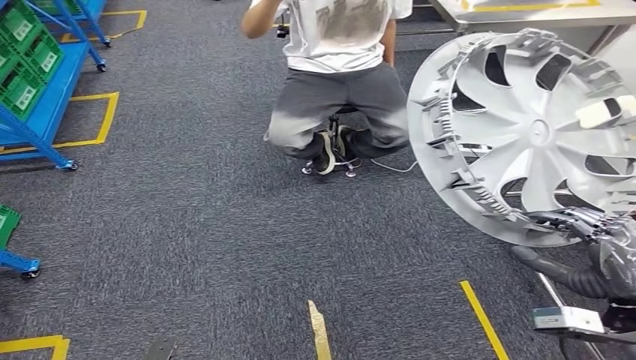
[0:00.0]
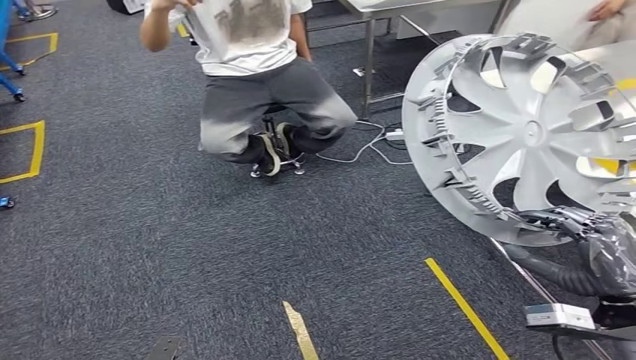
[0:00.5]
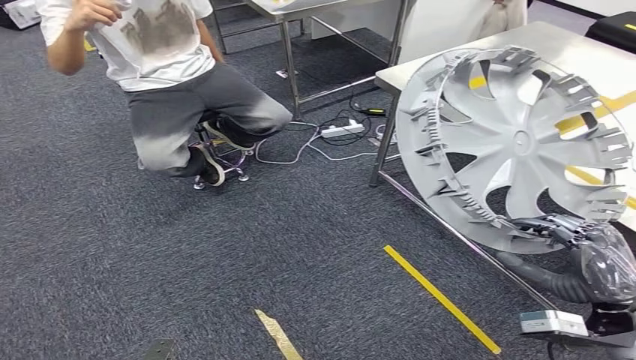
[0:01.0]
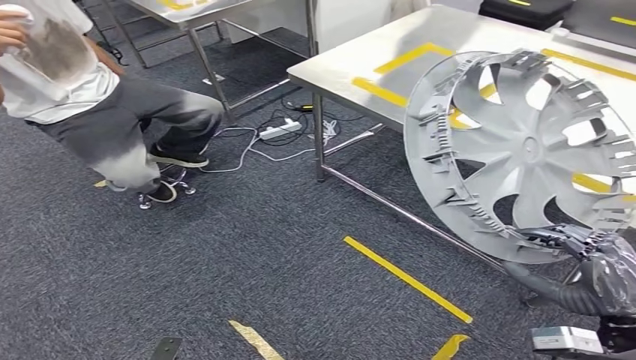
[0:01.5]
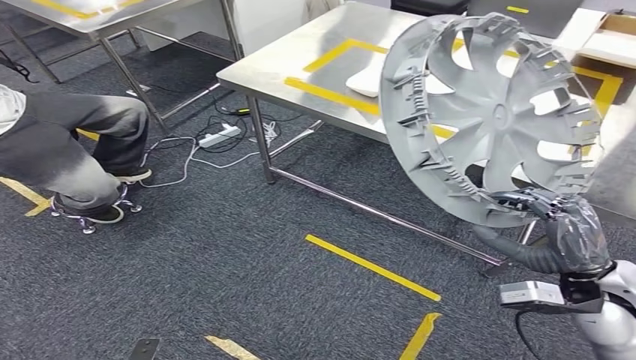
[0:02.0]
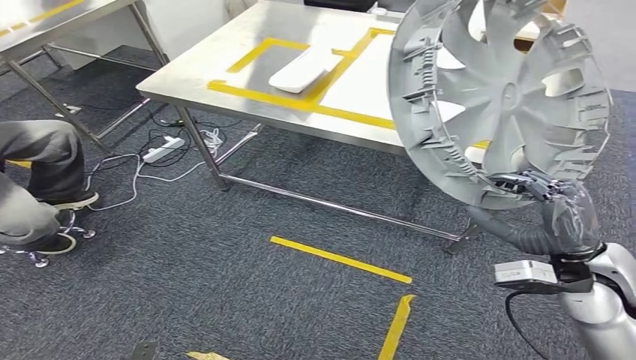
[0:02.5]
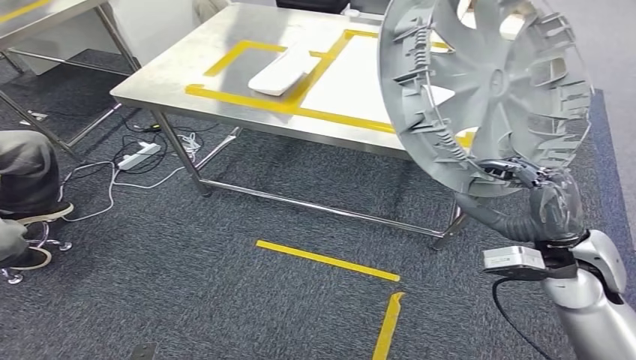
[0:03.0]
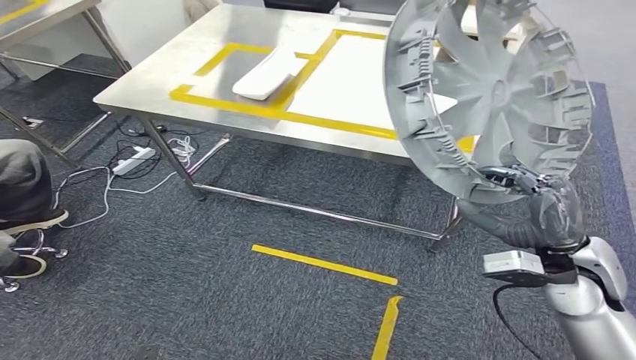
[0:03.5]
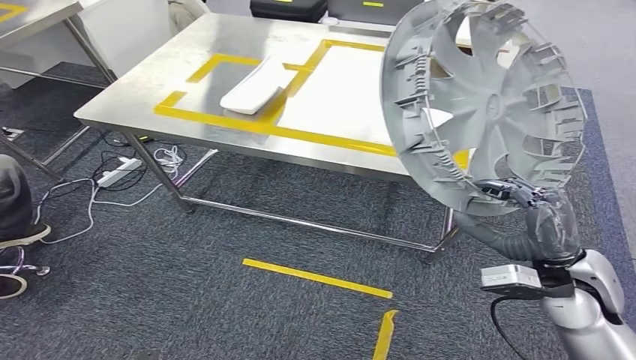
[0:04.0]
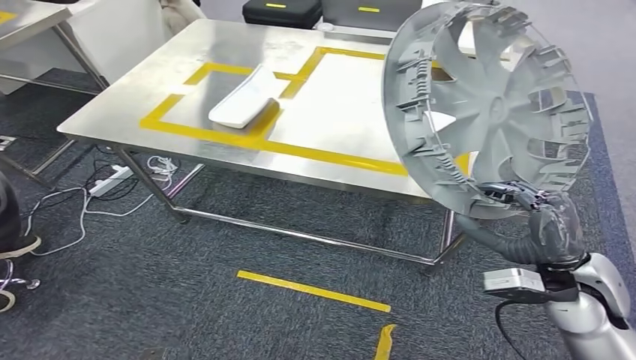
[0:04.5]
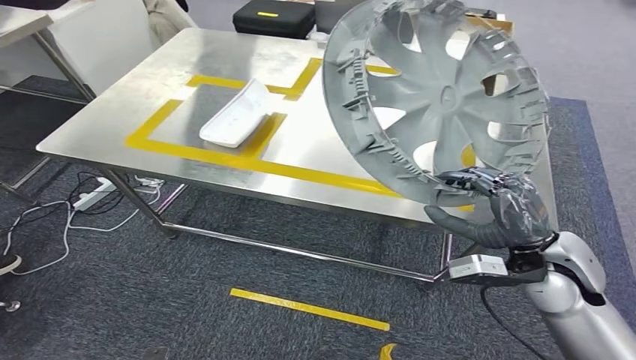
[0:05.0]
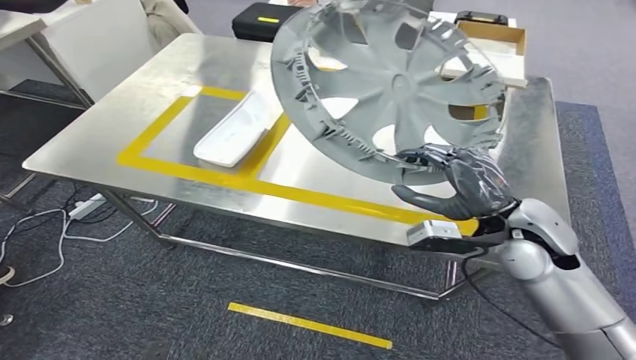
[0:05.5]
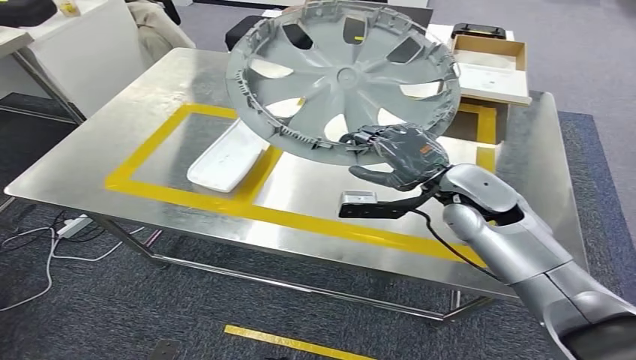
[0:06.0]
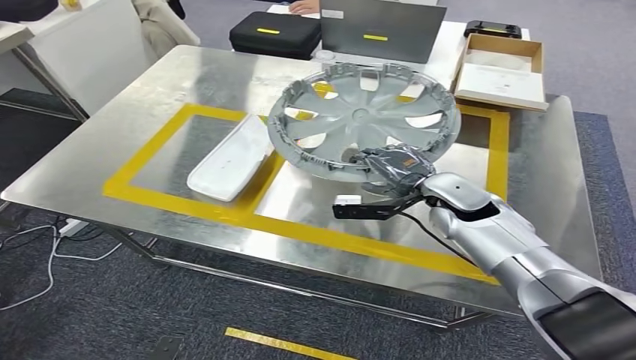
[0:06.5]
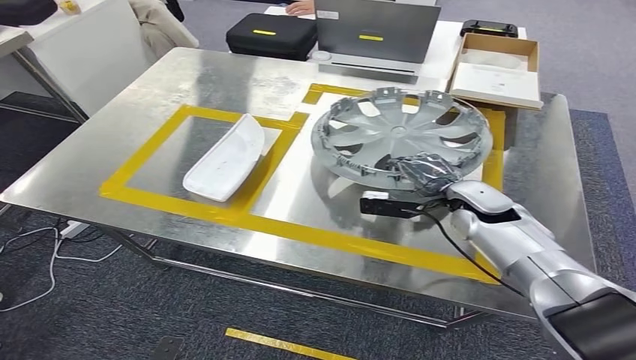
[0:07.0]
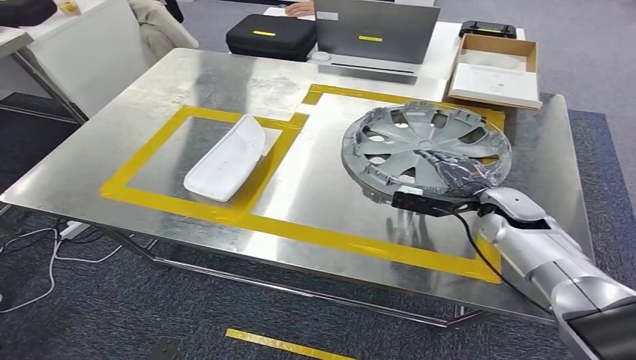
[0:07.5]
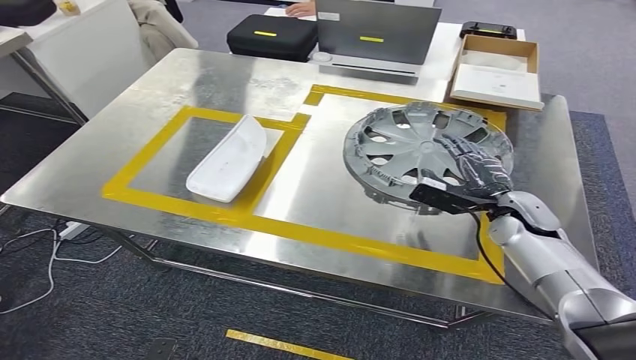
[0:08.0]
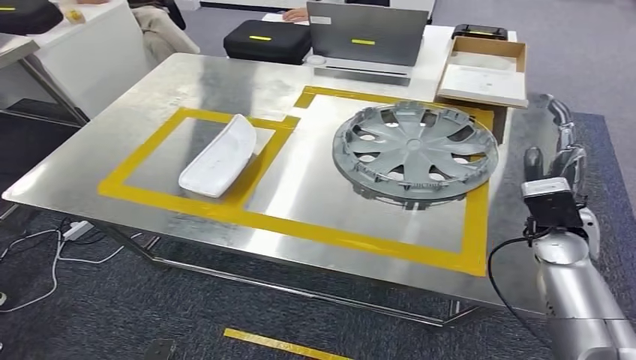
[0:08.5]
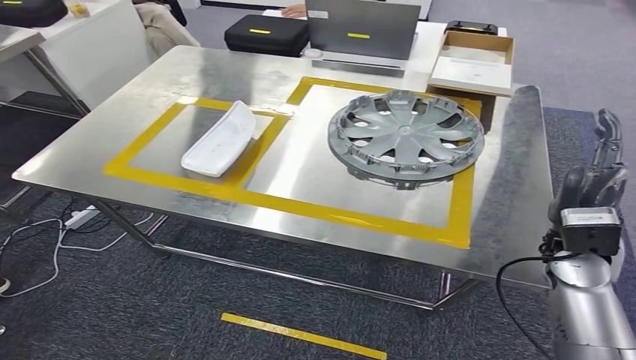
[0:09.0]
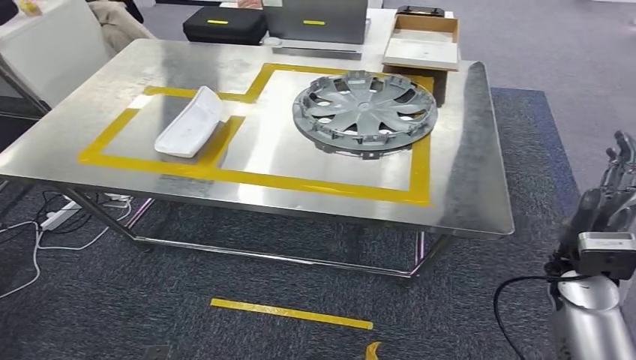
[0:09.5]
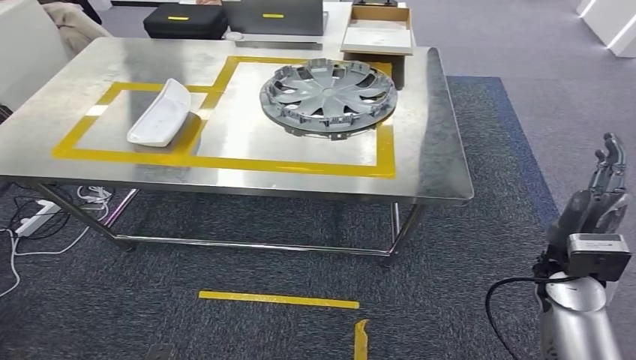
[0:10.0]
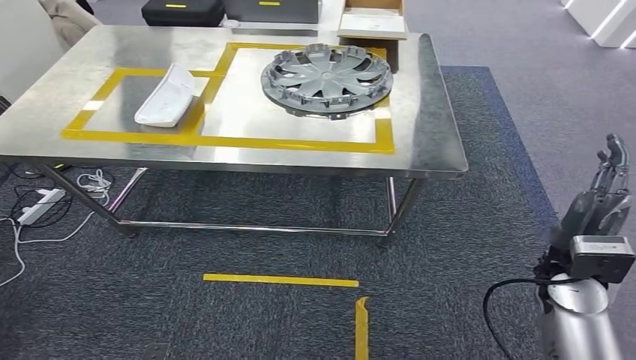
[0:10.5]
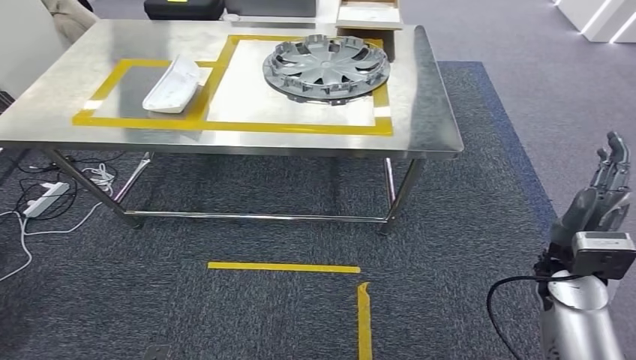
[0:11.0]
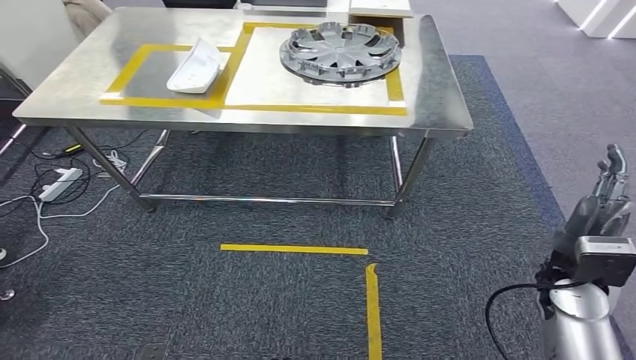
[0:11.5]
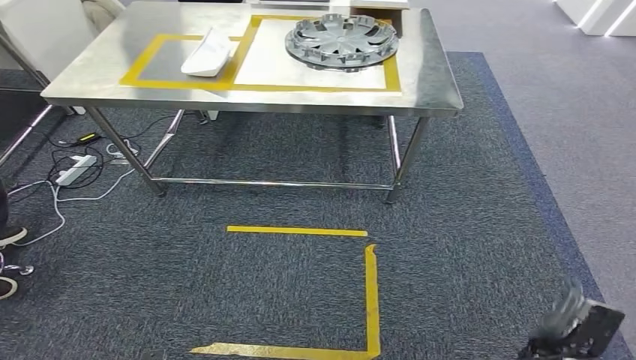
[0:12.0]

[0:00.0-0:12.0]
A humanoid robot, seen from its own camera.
Step, 0:00.0 to 0:04.5: Move the small parts to the workbench.
Step, 0:05.0 to 0:07.5: Insert the small parts into the corresponding holes on the workbench.

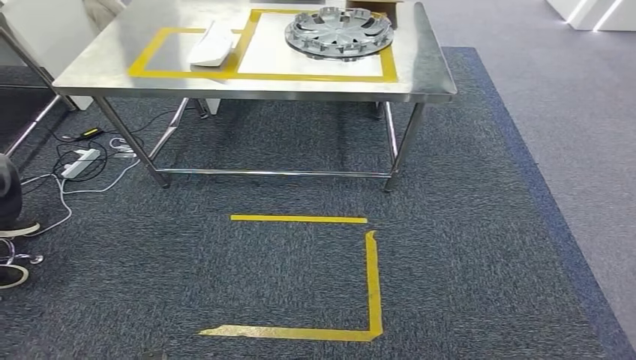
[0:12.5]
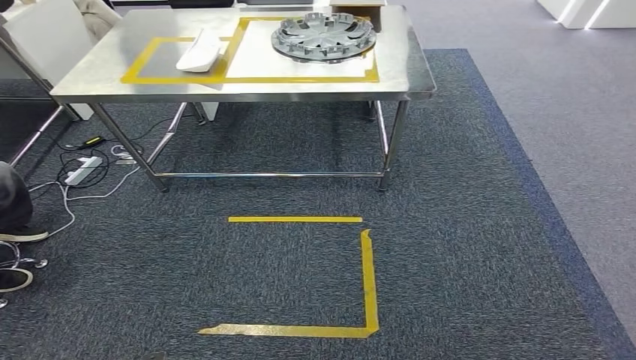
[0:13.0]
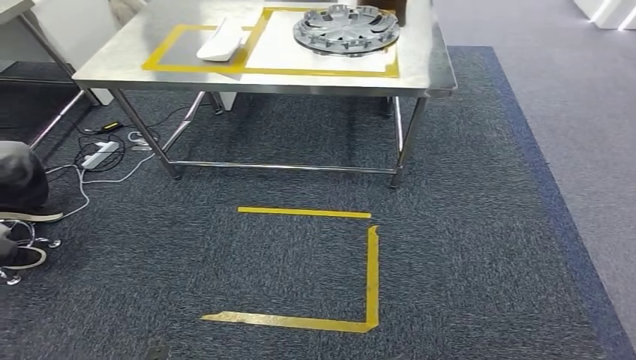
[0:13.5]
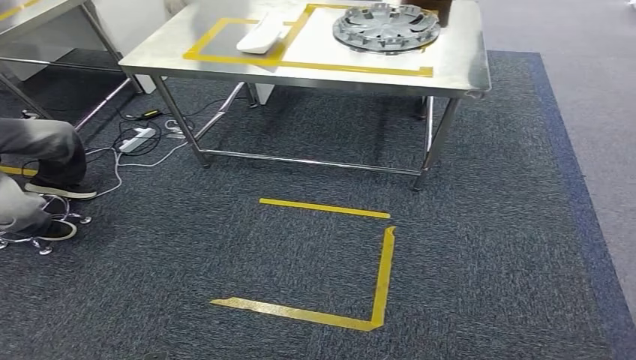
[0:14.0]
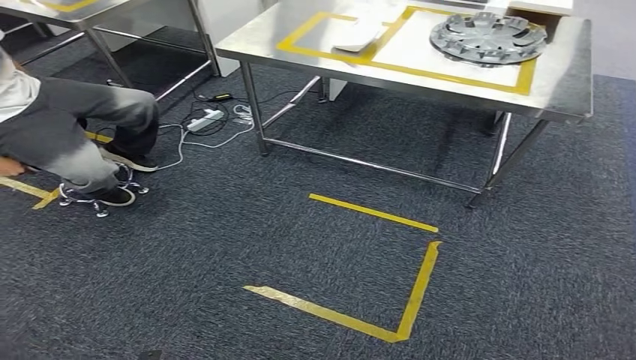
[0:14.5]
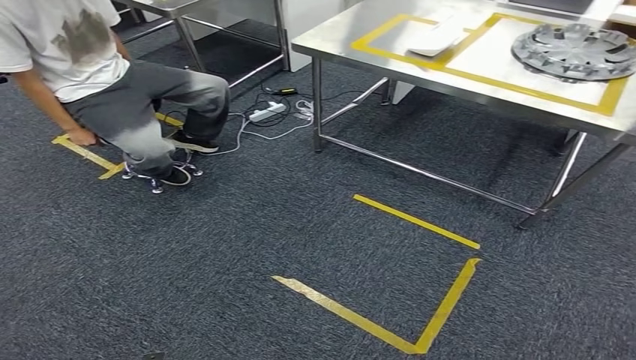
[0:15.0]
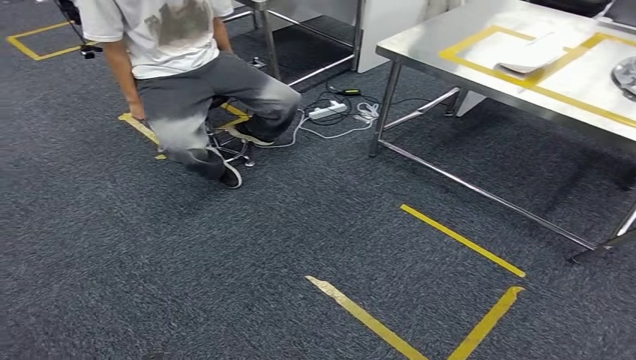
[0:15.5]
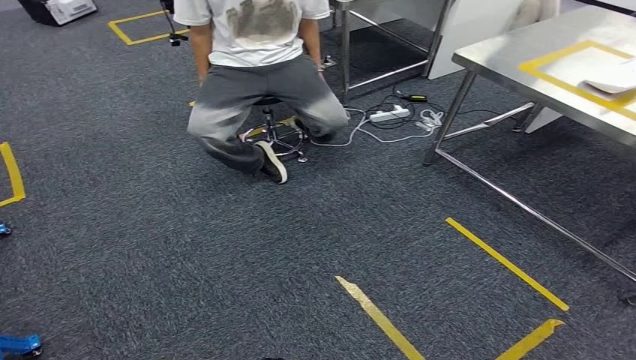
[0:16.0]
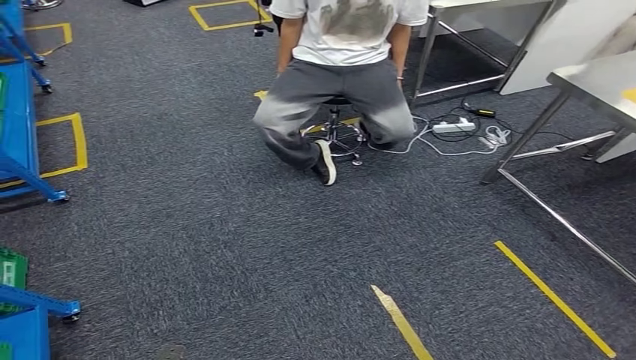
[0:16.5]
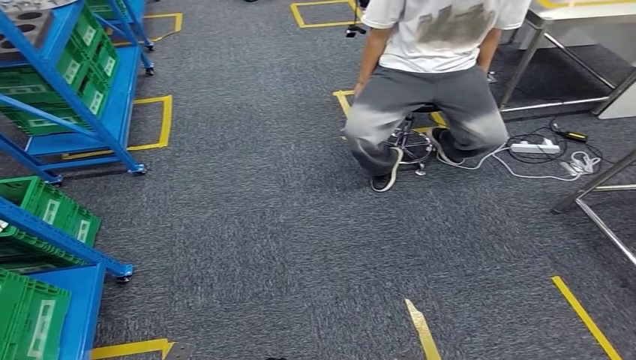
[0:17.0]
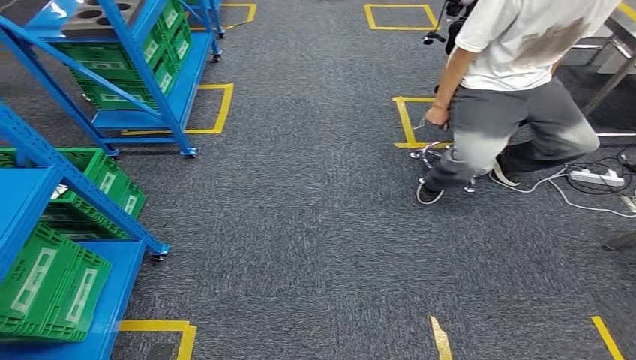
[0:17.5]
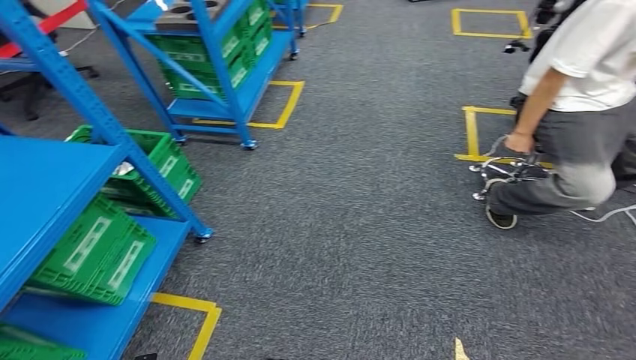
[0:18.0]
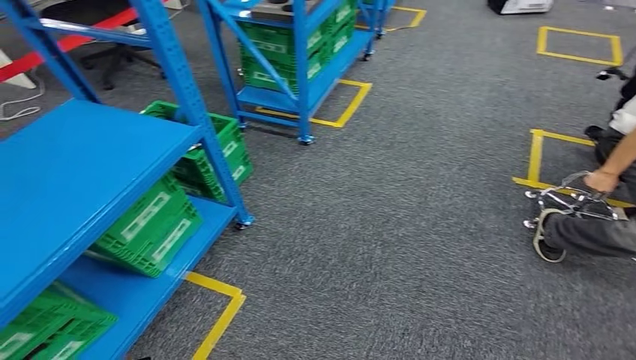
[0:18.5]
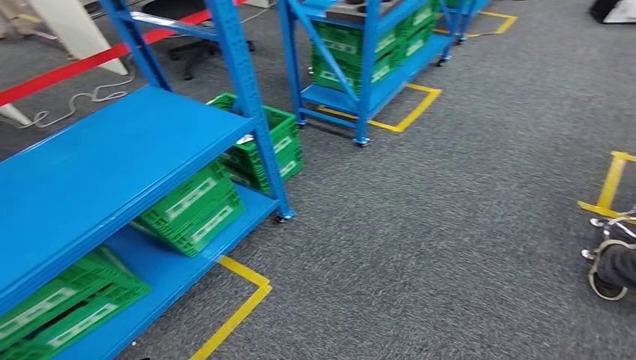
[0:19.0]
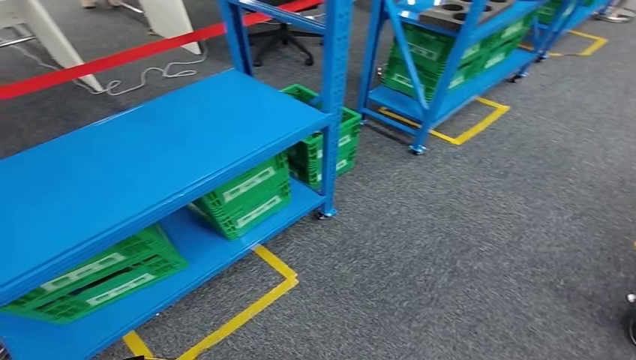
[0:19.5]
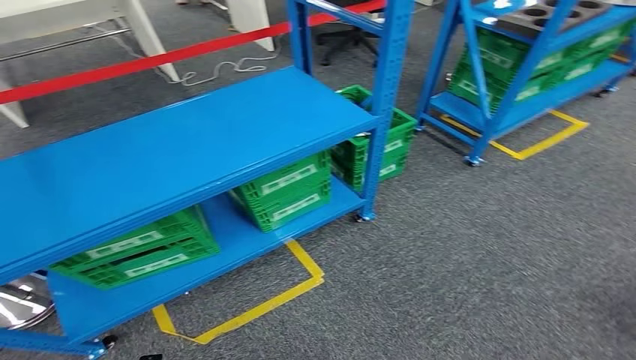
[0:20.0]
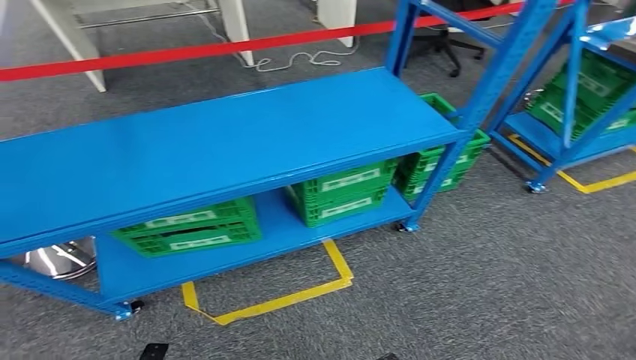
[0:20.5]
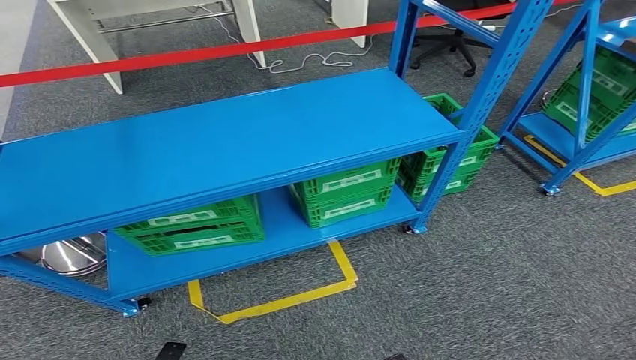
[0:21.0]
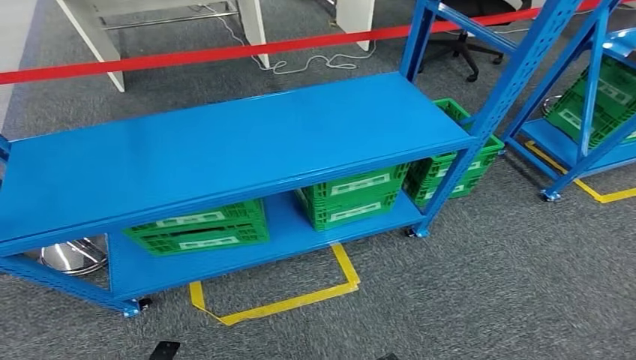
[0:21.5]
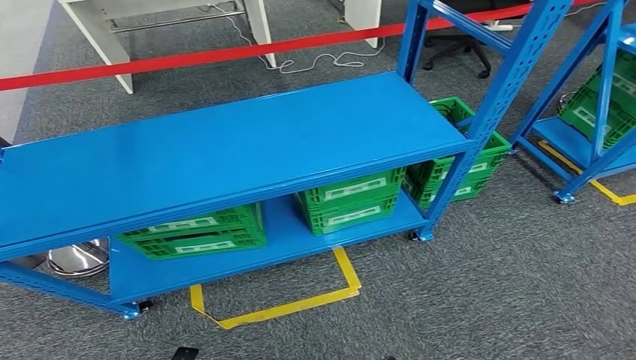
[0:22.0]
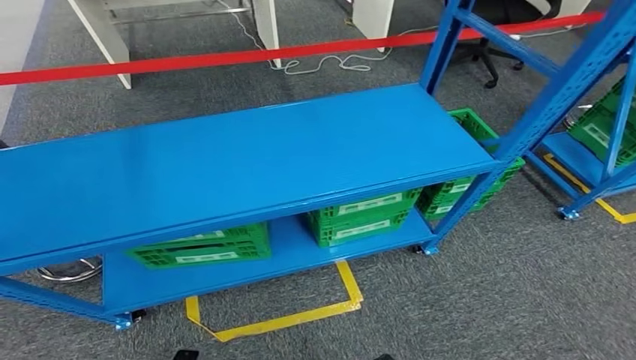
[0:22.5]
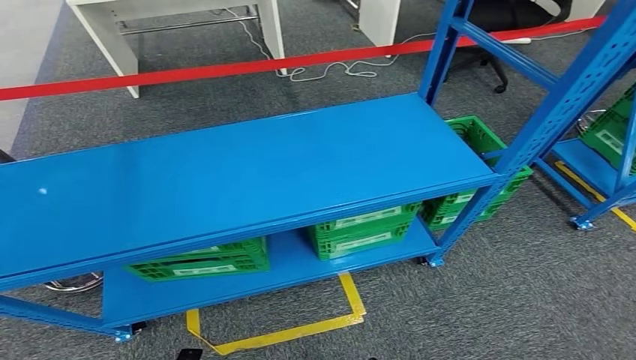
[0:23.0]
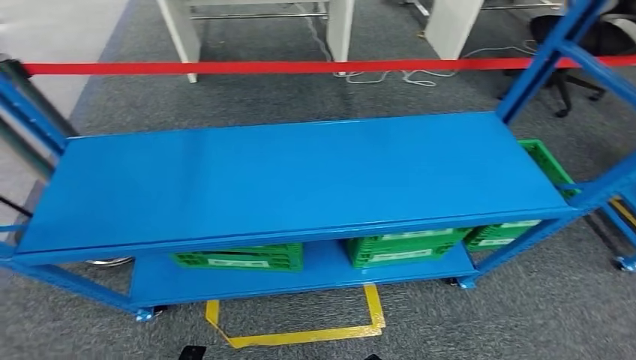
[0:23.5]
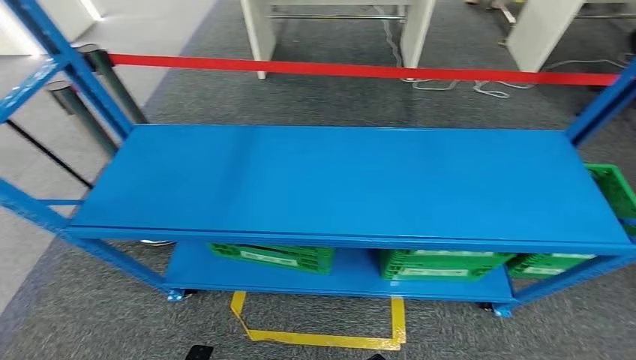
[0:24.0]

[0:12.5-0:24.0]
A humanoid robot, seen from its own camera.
Step, 0:12.5 to 0:24.0: Move to the initial position of the workbench.
